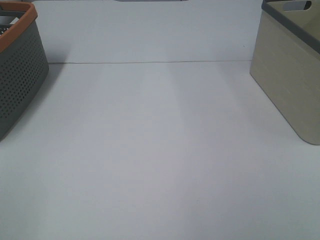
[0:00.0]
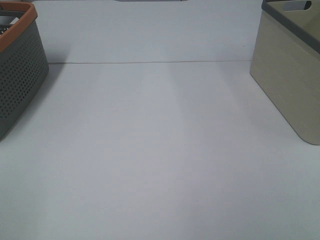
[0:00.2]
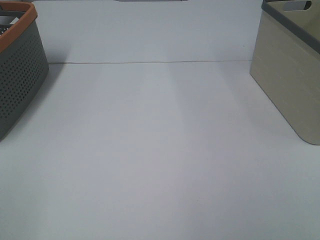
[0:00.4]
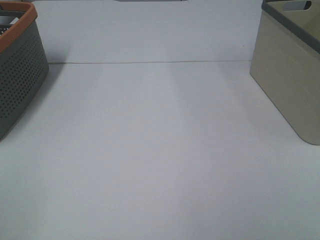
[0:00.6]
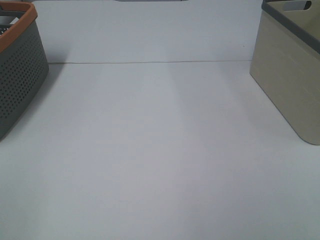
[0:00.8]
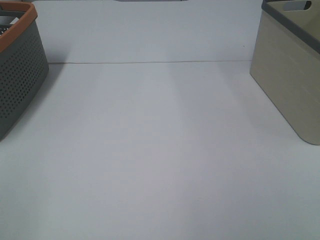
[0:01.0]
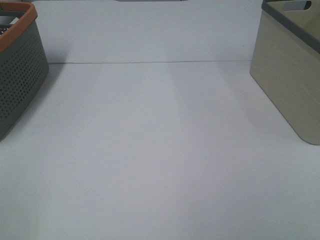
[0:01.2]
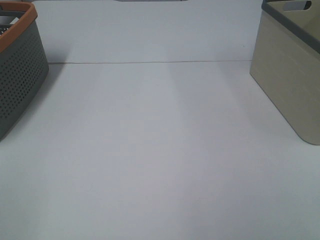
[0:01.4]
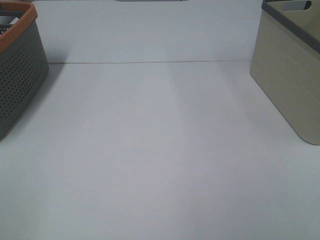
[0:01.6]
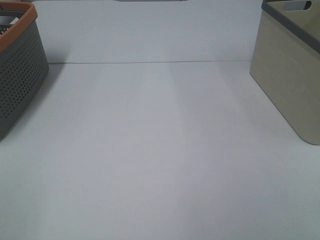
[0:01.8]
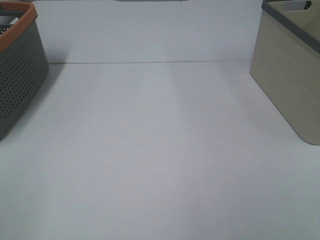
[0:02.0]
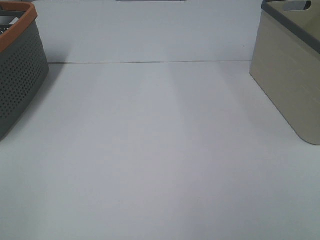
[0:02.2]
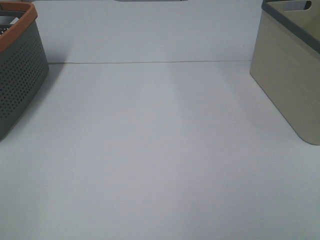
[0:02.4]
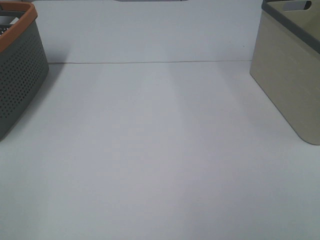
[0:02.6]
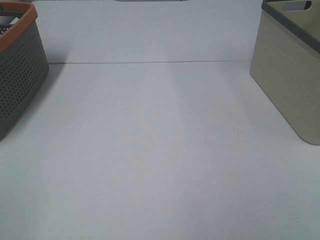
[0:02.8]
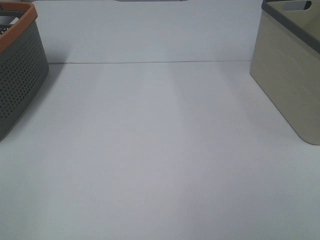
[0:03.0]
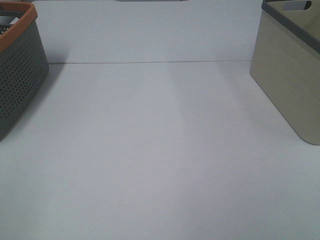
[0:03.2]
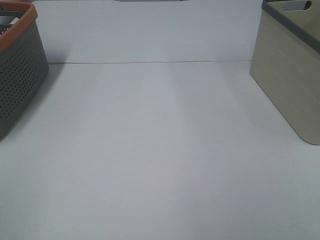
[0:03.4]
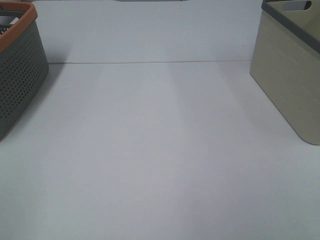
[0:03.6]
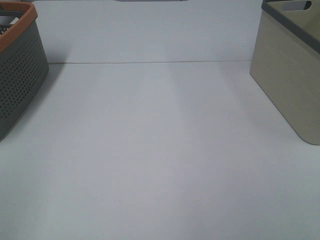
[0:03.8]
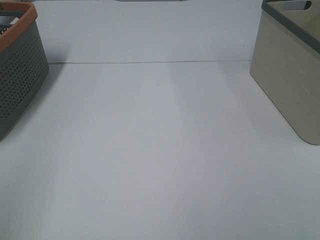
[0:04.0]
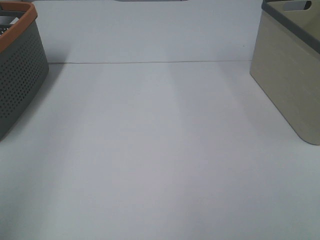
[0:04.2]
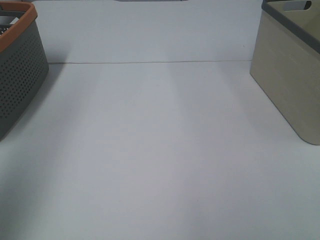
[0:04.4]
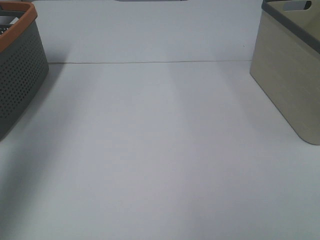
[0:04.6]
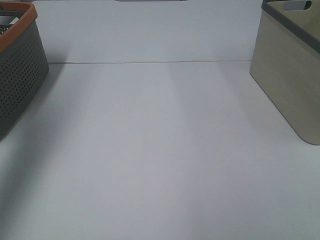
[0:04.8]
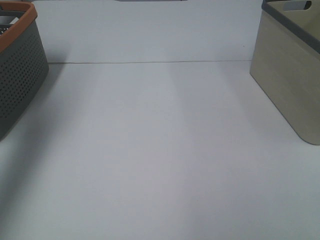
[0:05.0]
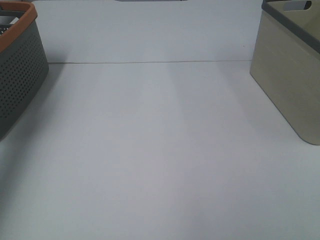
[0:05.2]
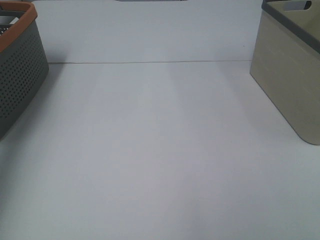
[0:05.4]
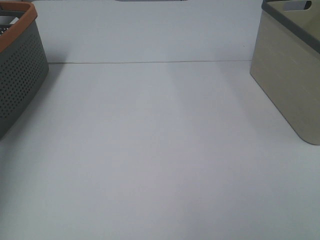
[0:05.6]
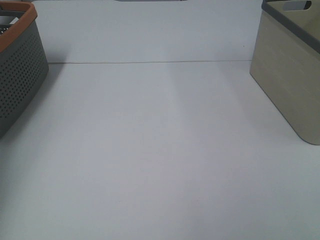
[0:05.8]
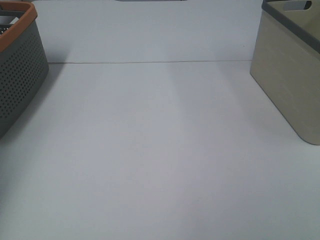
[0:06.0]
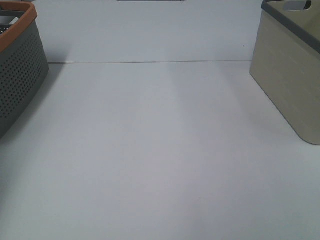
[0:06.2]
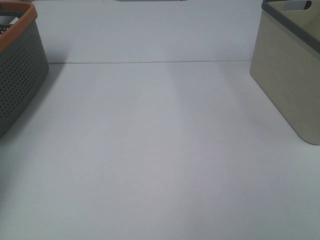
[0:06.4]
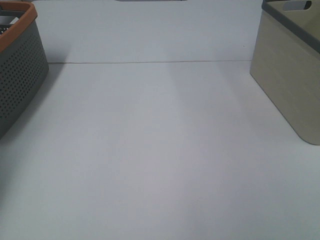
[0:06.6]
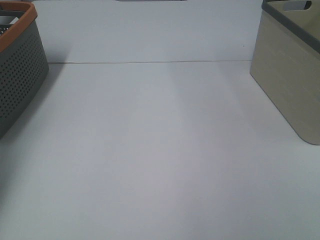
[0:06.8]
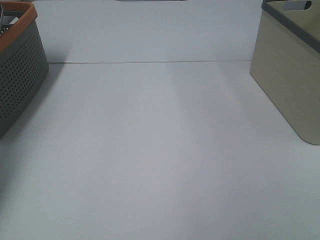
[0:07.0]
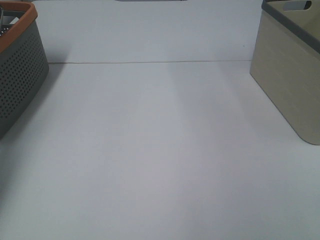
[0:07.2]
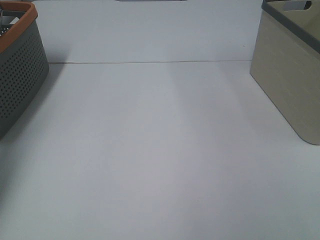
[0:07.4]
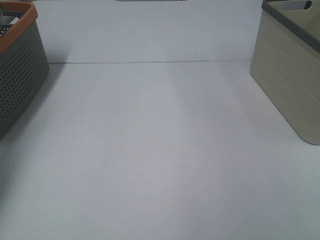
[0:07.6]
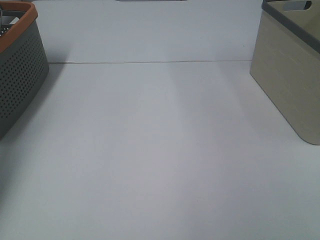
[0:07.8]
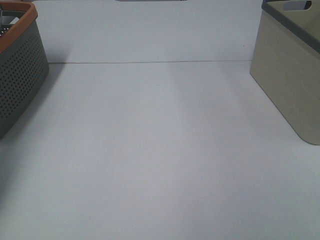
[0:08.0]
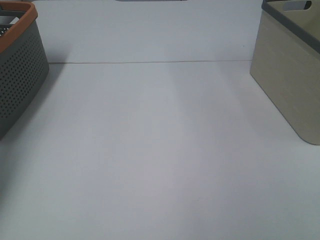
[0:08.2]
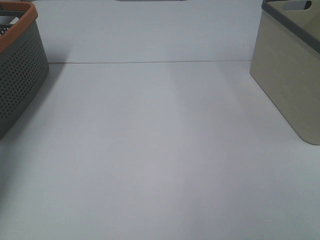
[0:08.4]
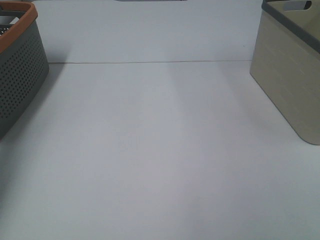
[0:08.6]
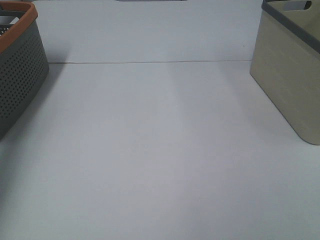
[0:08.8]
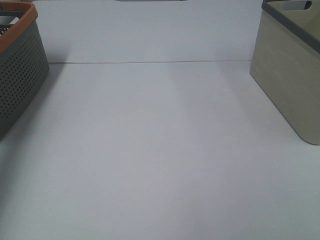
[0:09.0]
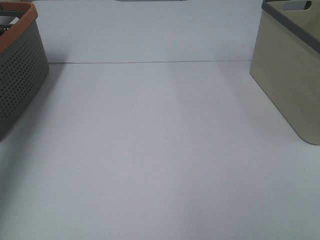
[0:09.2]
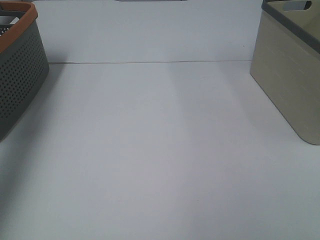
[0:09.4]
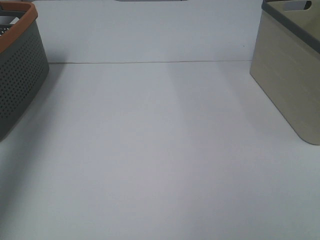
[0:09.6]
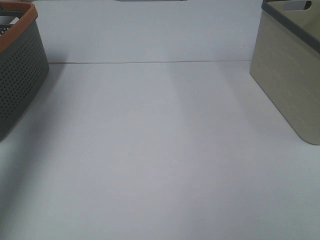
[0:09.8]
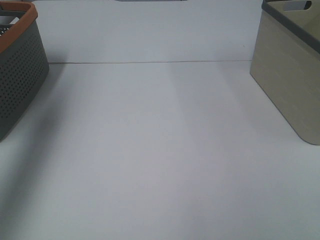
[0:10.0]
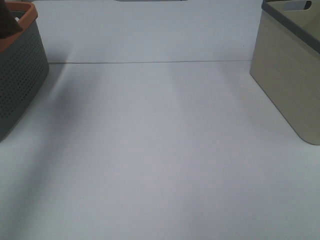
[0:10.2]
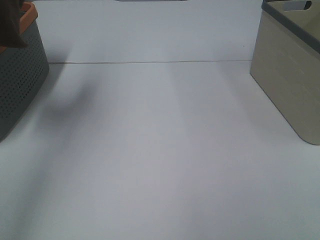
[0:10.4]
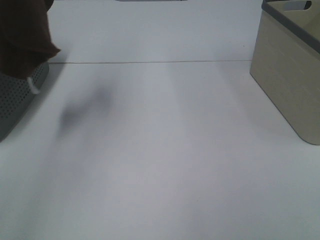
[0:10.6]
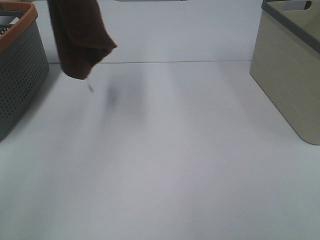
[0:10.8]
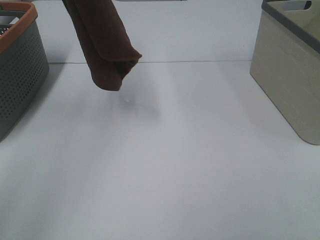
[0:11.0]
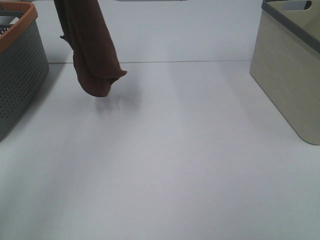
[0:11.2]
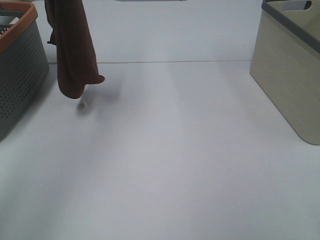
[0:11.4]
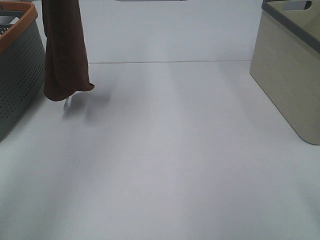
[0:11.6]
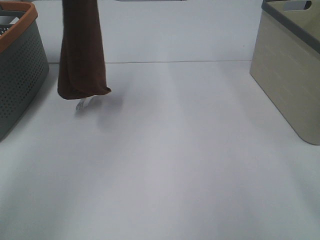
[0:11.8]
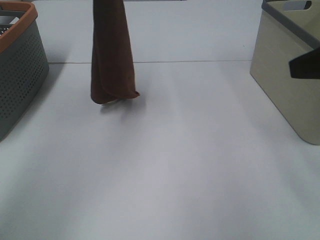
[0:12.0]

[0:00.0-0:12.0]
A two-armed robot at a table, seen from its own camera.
Task of the whole recording: Remove the towel and place it.
0:00.0 to 0:03.0: Both grippers stay put.
0:03.0 to 0:04.4: The left gripper goes some 20 cm forward and upward.
0:04.4 to 0:06.0: The left gripper goes roughly 25 cm forward.
0:09.0 to 0:10.4: The left gripper shifts roughly 25 cm upward, to the right and backward.
0:10.4 to 0:12.0: The right gripper is displaced forward by roughly 20 cm; the left gripper is displaced downward, to the right and forward by about 20 cm.

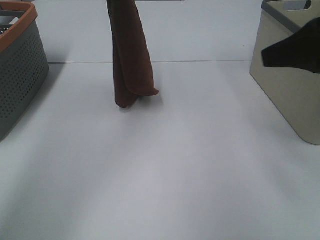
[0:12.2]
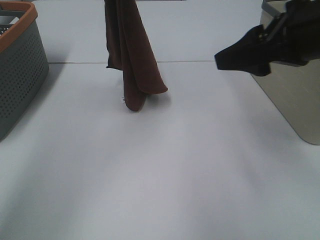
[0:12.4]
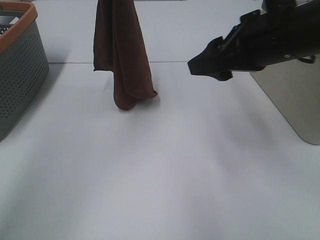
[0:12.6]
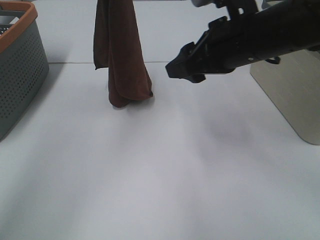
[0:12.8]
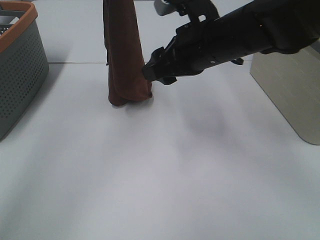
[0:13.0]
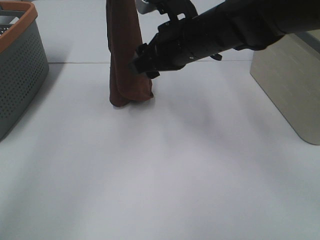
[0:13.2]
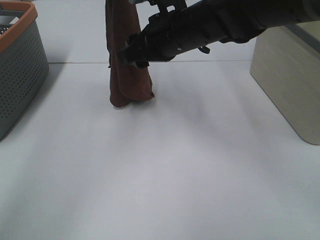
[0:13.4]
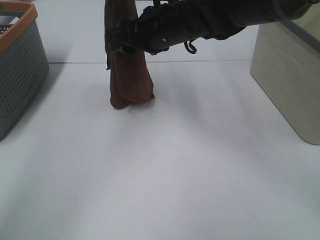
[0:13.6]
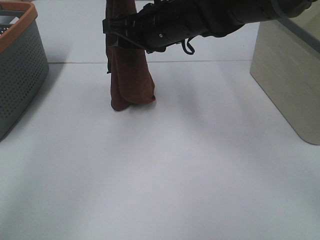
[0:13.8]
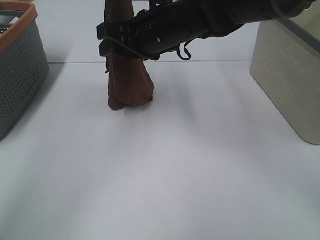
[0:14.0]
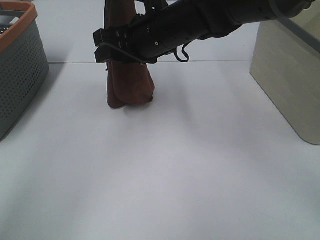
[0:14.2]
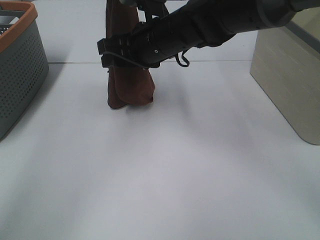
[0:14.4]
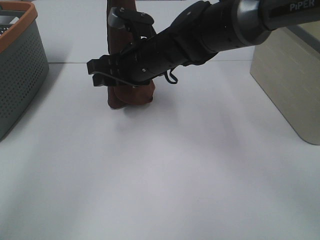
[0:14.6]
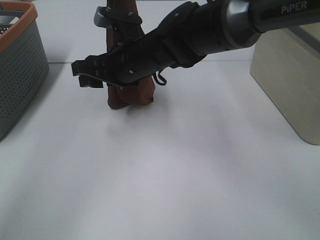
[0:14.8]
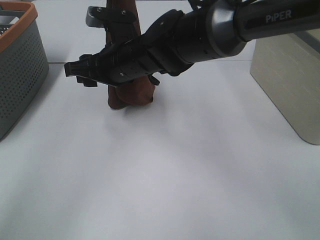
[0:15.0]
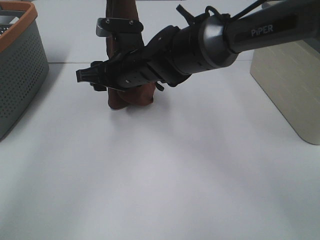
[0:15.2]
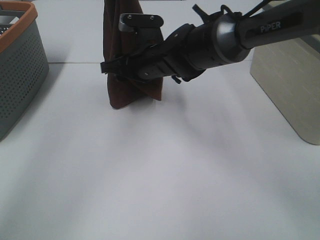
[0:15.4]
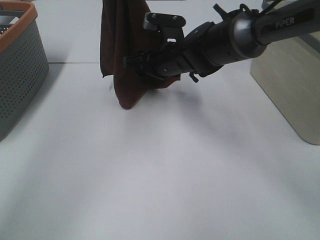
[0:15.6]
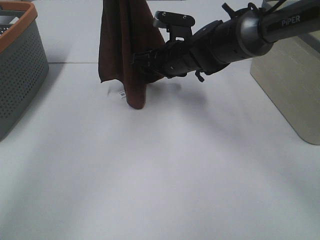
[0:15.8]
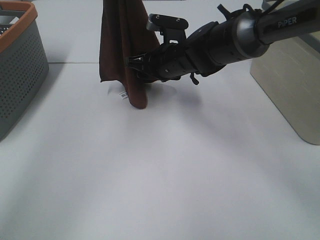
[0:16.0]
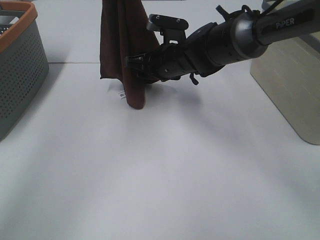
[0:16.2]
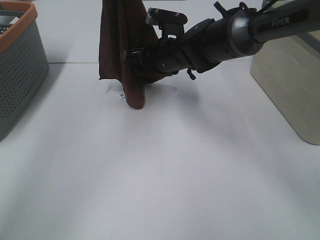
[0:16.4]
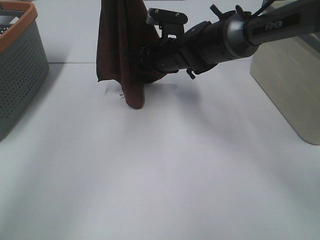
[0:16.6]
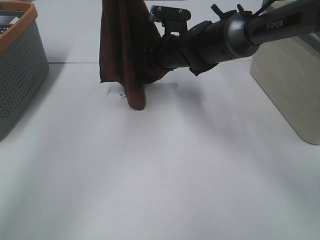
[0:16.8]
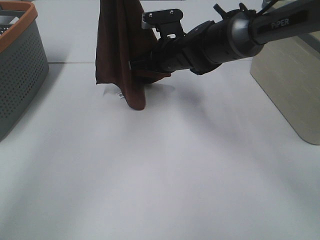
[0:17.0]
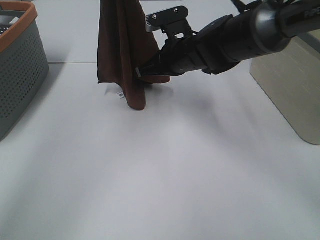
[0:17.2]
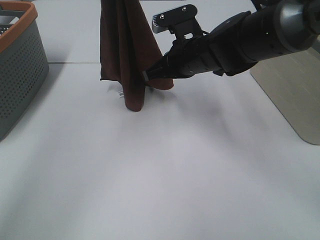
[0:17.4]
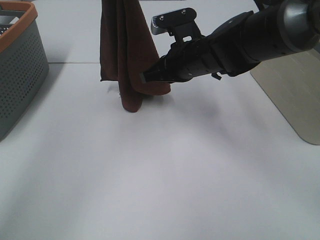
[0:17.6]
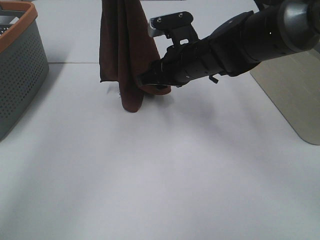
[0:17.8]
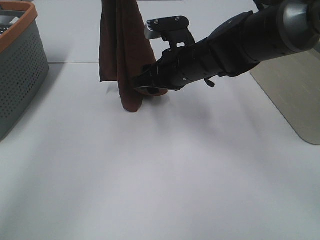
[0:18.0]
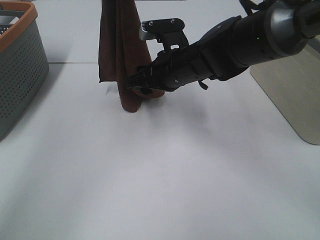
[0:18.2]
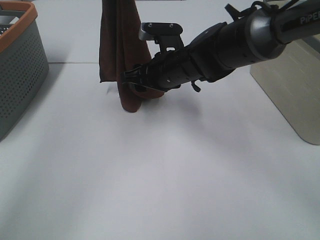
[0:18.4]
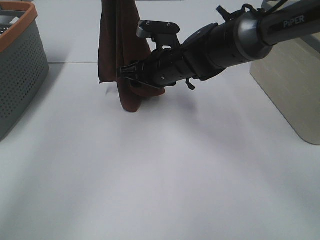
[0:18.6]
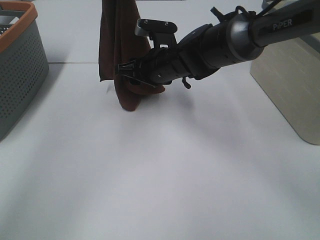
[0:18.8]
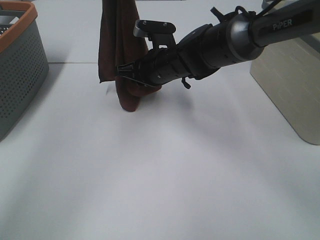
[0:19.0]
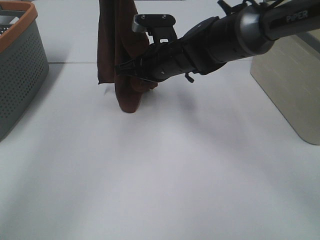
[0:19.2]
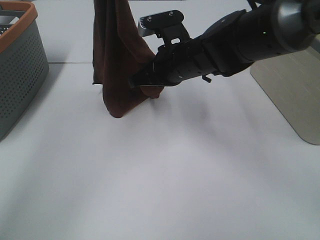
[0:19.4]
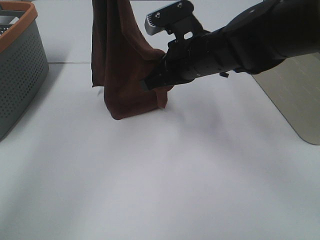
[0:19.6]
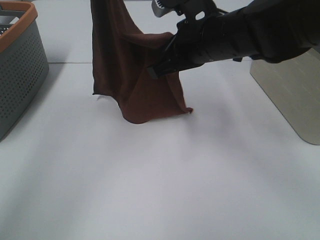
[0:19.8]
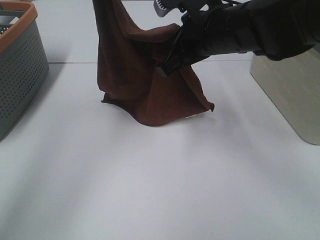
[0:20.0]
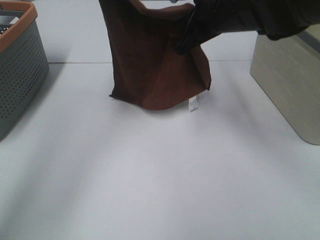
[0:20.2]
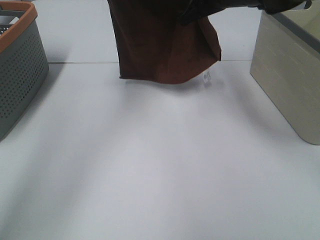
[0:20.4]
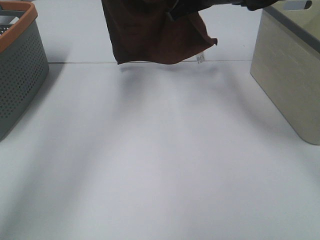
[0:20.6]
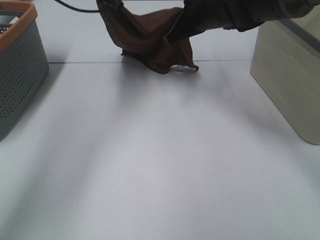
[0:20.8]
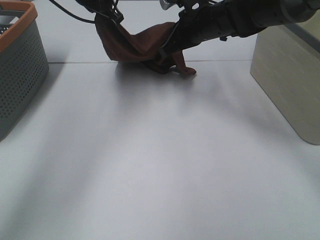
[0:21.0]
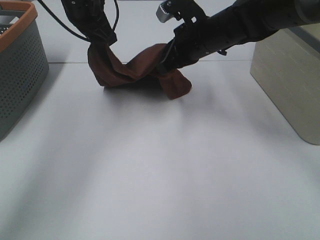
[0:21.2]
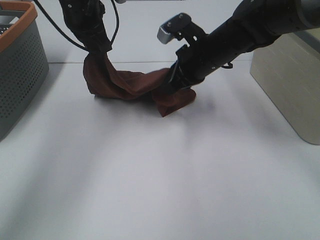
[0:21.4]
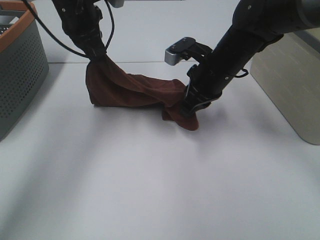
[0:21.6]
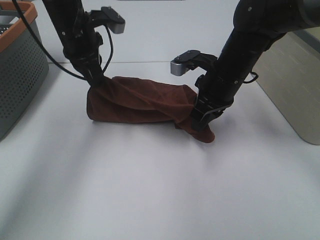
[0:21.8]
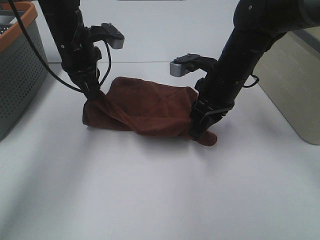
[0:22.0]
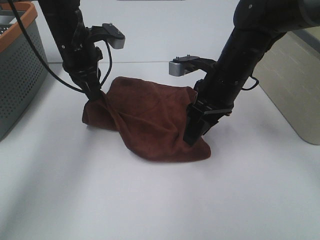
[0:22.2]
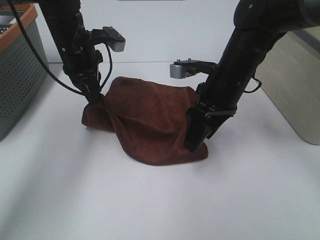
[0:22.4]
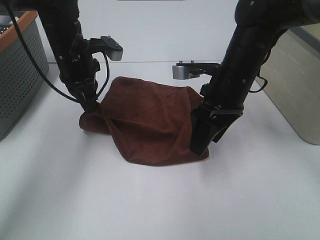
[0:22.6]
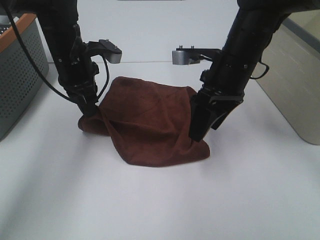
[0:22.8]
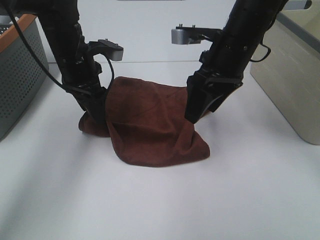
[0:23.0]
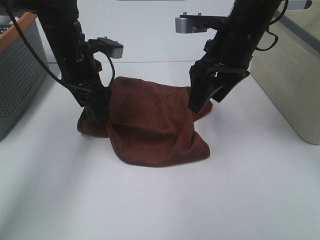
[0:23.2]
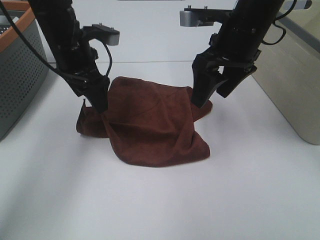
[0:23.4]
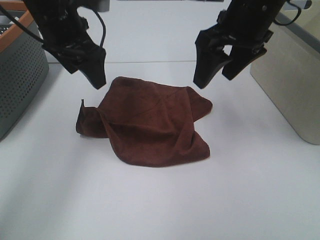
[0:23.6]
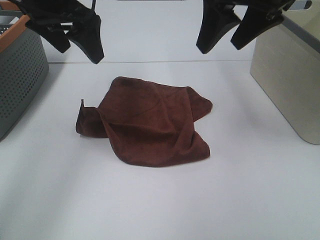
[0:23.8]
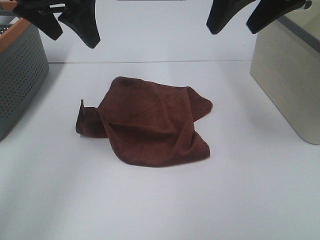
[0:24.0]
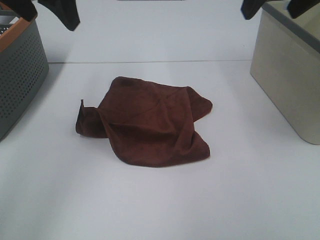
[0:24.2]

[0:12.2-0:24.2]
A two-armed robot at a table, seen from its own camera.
Task of the whole recording: Remove the towel and place it.
Step, 0:12.2 to 0:16.2: Right hand: grab a corner of the brown towel and straighten it.
Step, 0:16.4 to 0:17.6: Right hand: spread the brown towel flat on the table.
0:12.2 to 0:13.8: The right gripper heads to the left and forward, covering roughly 25 cm.
0:13.8 to 0:15.2: The right gripper heads downward and to the left, covering roughly 10 cm.
0:15.2 to 0:16.6: The right gripper travels to the right and forward by approximately 10 cm.
0:16.6 to 0:18.2: The right gripper is displaced backward by approximately 5 cm, and closes, then reopens.
0:18.2 to 0:19.8: The right gripper shifts approximately 10 cm upward, and closes its fingers.
0:19.8 to 0:21.2: The right gripper heads forward, covering some 10 cm, while the left gripper travels downward by some 10 cm.
0:21.2 to 0:22.6: The left gripper travels downward by approximately 10 cm. The right gripper heads backward, covering roughly 5 cm, and opens up.
0:22.6 to 0:24.2: Both grippers travel together upward, roughly 20 cm. The left gripper opens up.
